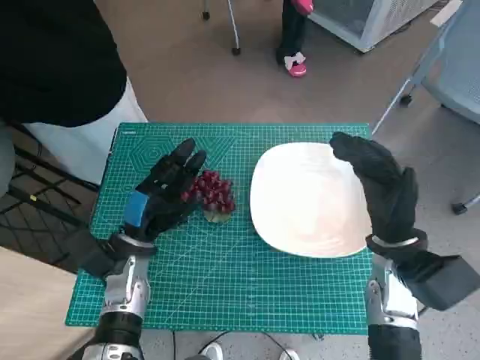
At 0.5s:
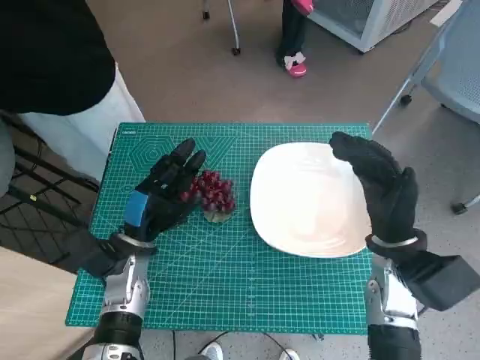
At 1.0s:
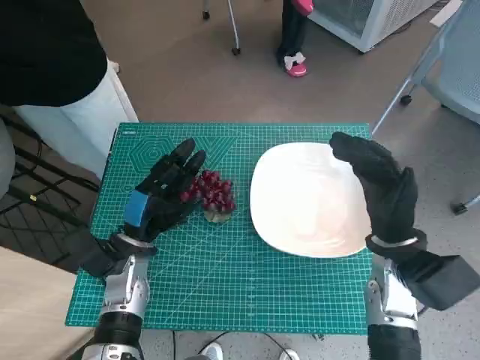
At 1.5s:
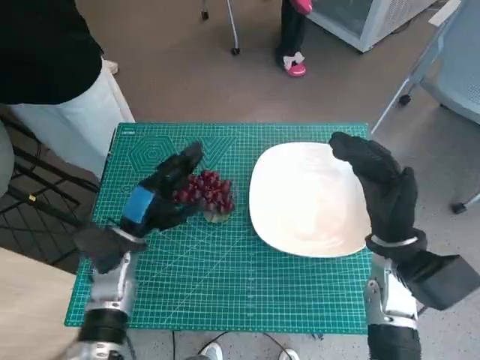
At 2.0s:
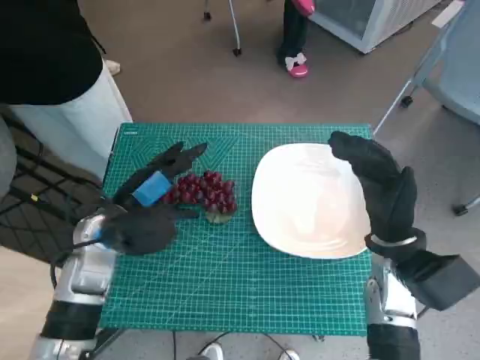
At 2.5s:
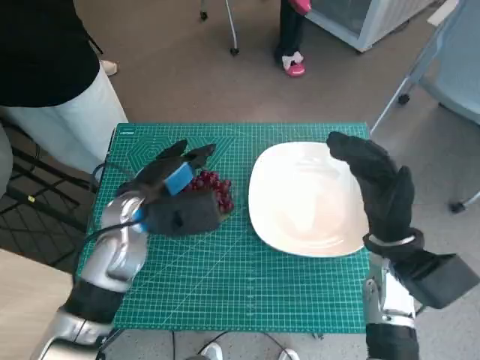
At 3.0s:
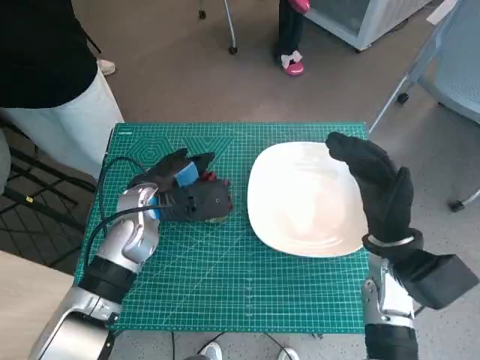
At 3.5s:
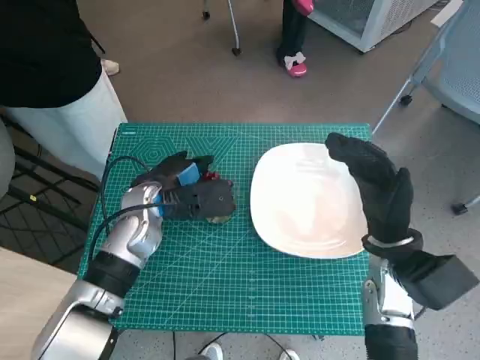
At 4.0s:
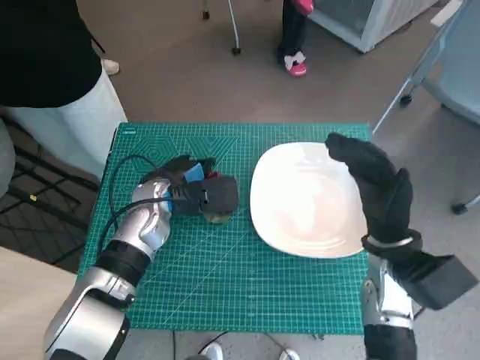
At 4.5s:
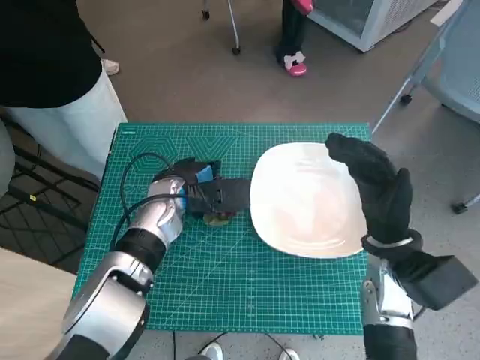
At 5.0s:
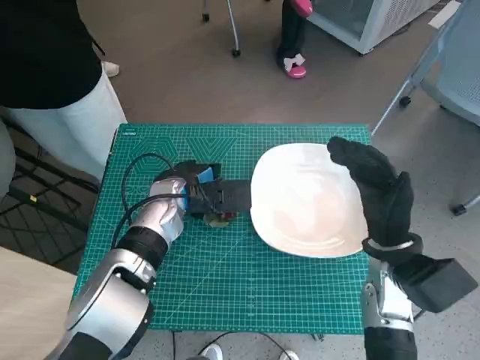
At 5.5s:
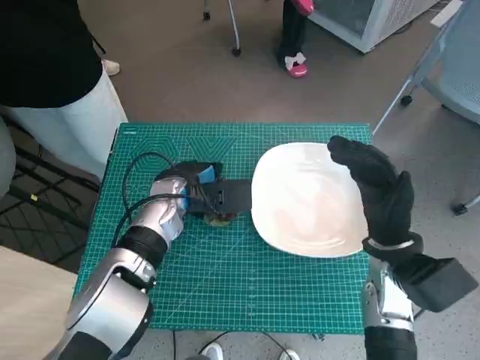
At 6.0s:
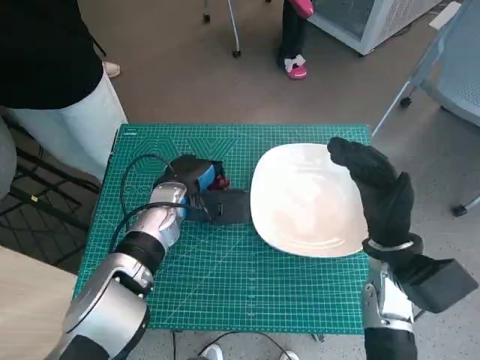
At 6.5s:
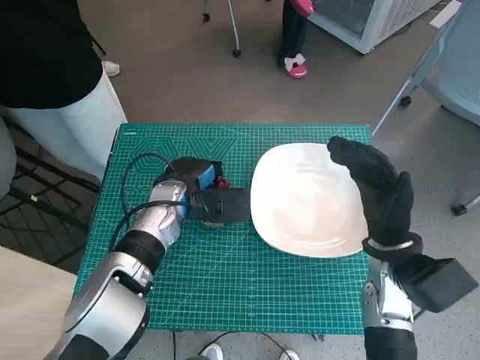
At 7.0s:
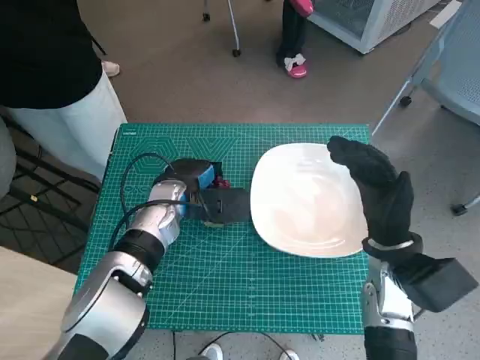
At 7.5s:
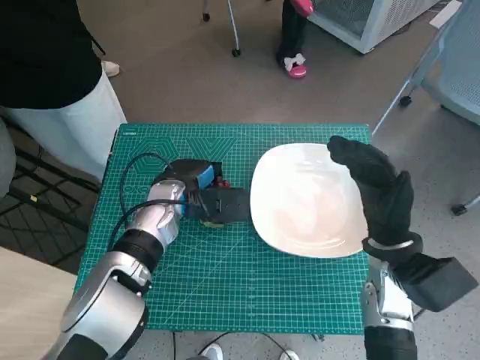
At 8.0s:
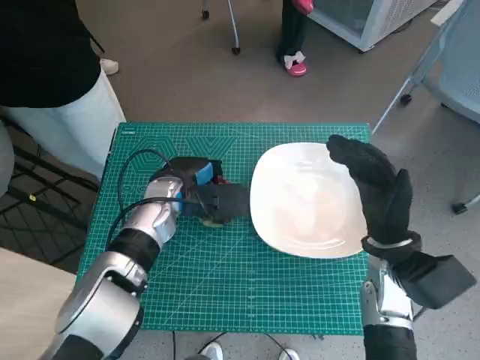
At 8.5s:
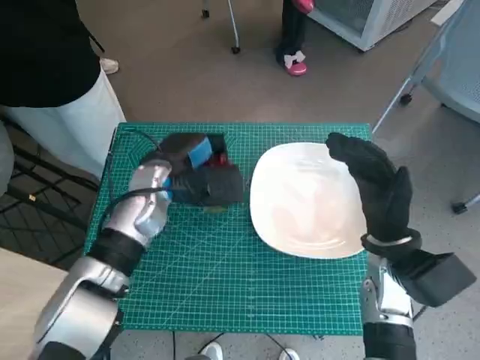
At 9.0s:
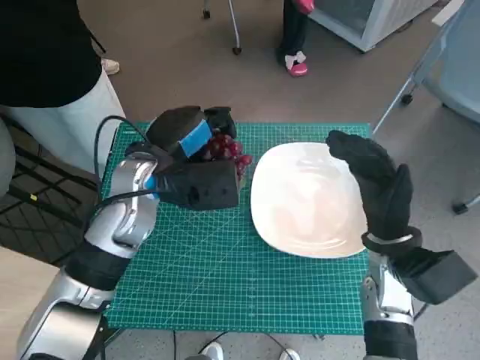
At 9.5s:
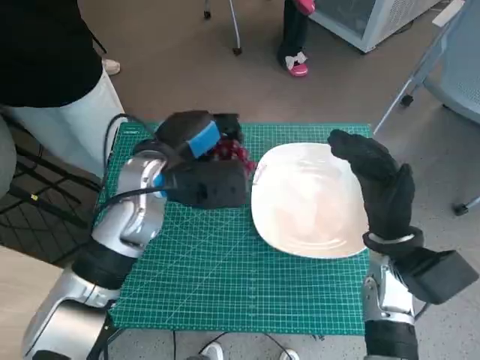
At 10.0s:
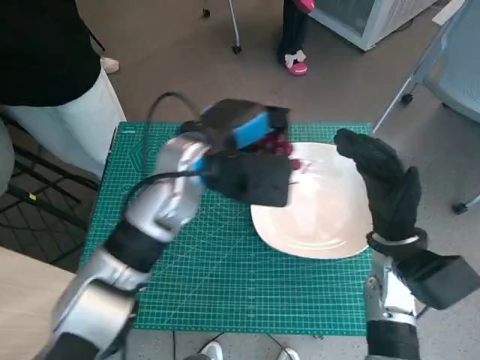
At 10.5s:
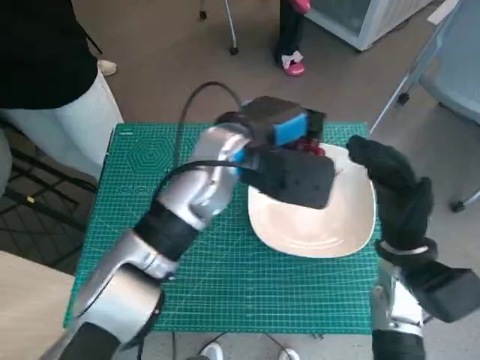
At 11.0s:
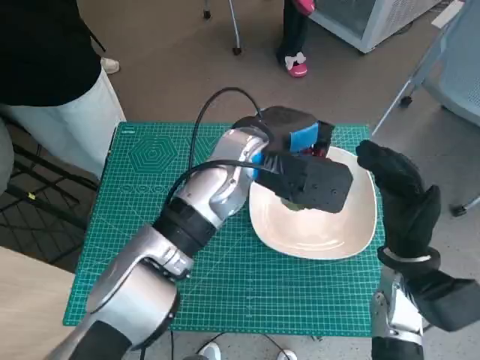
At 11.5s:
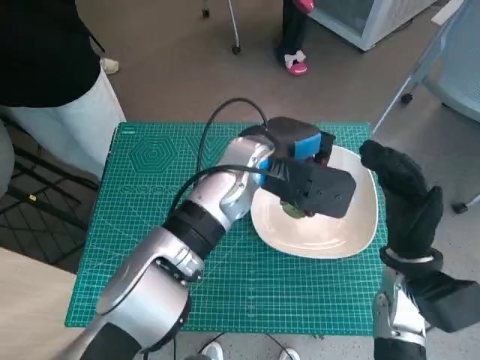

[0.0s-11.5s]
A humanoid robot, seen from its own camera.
Task of the whole recording: Pick up the grapes and put them on the plate.
Step, 0.0s to 6.0s: Grasp the grapes with left hand.
2.0s to 4.0s: The left hand is displaced forward and to the right by roughly 10 cm.
4.0s to 6.0s: The hands stay close to where they were, moving slightly.
6.0s to 7.5s: Both hands stay about where they are.
7.5s to 9.5s: The left hand shifts roughly 10 cm upward.
9.5s to 11.5s: The left hand moves to the right, about 10 cm.

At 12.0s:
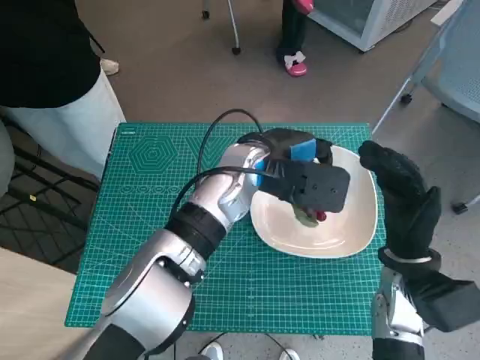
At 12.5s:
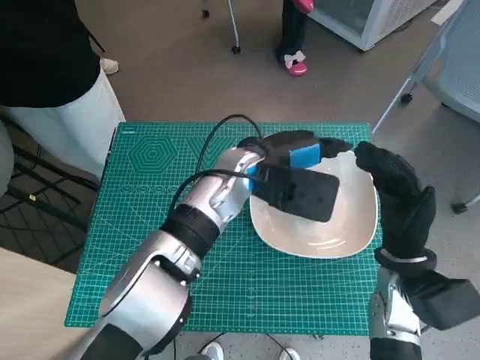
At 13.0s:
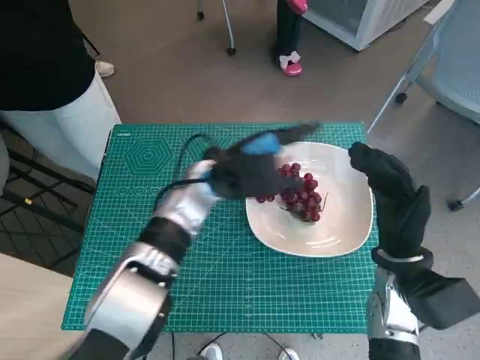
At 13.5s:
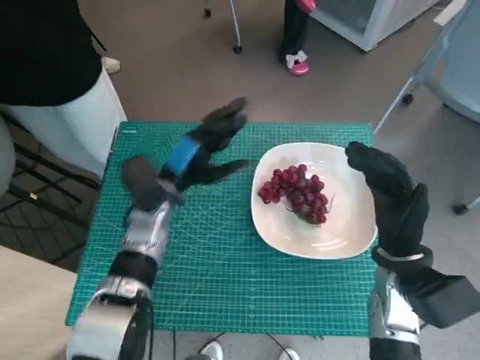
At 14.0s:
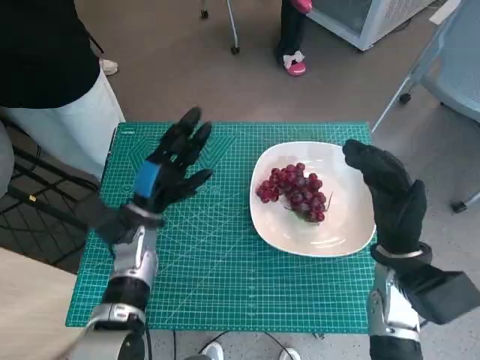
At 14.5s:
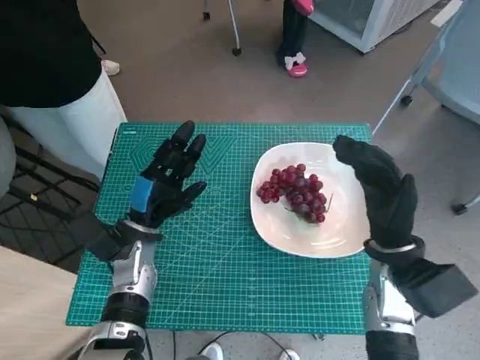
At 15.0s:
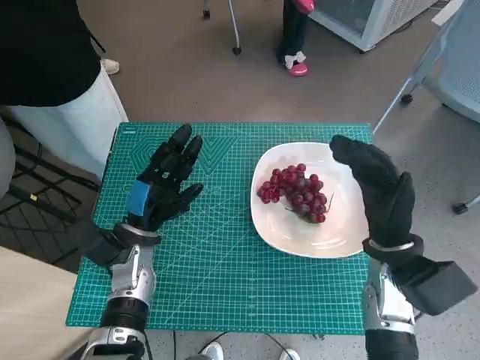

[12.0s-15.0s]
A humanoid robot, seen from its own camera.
Task of the whole recording: Pick up the grapes and put them on the plate.
12.0s to 13.5s: The left hand heads to the left and downward, covering some 15 cm.
13.5s to 15.0s: The left hand shifts about 10 cm downward and backward.

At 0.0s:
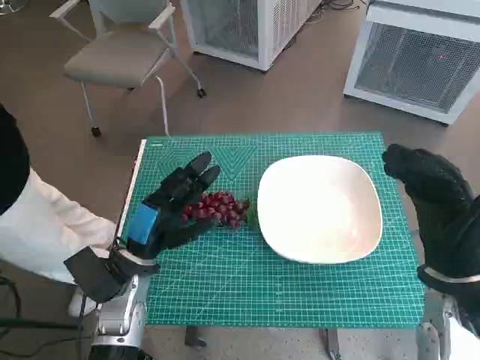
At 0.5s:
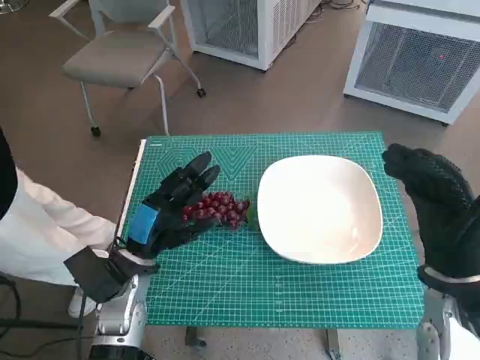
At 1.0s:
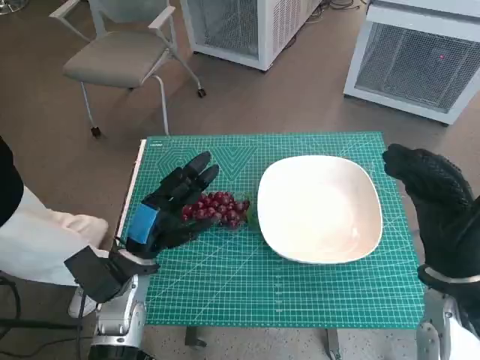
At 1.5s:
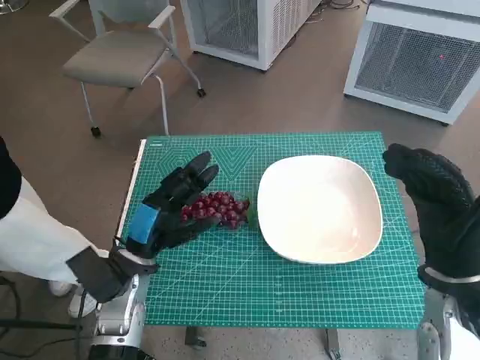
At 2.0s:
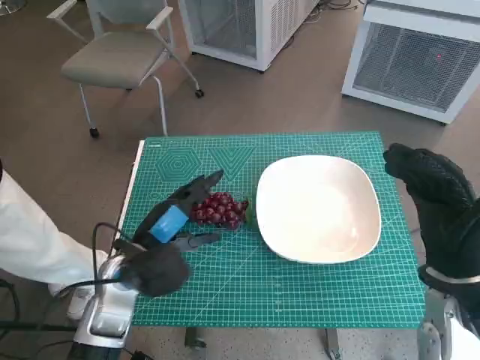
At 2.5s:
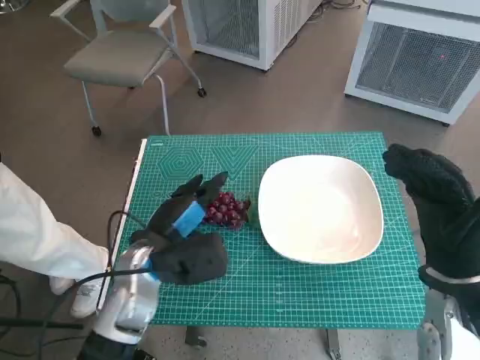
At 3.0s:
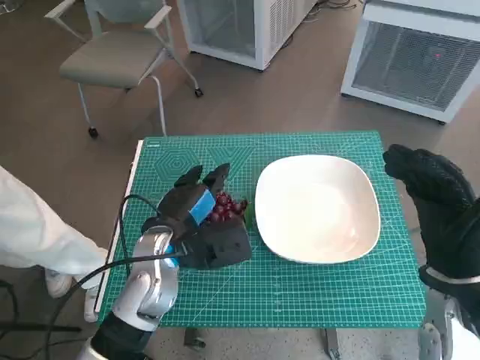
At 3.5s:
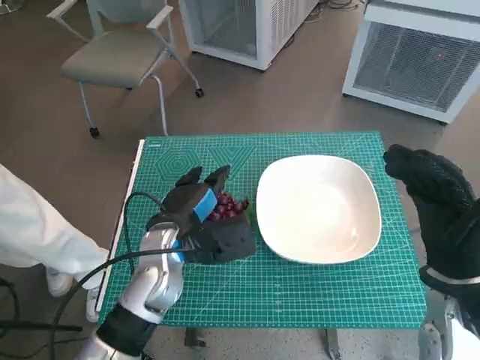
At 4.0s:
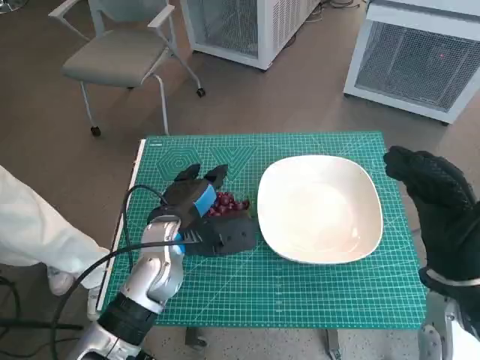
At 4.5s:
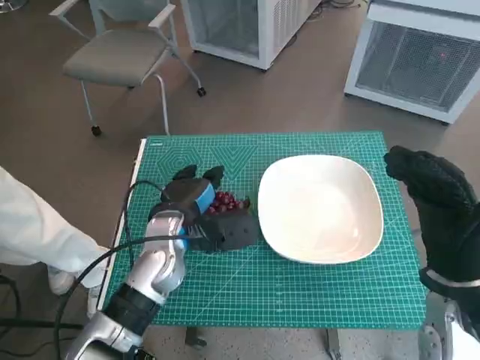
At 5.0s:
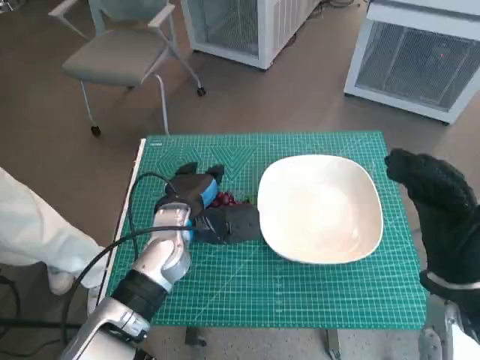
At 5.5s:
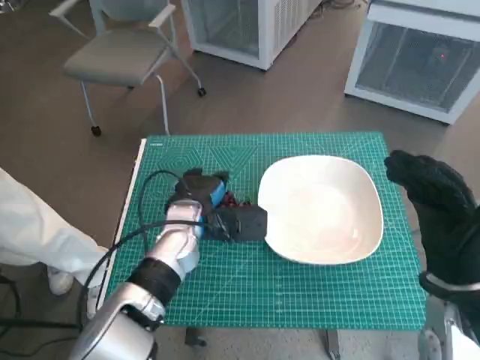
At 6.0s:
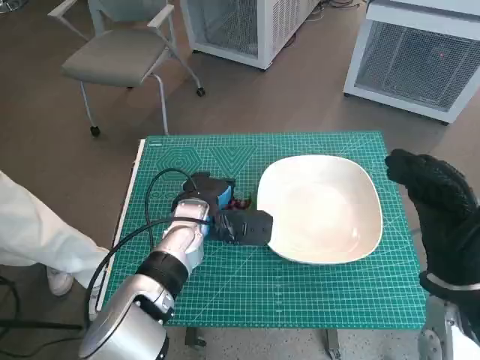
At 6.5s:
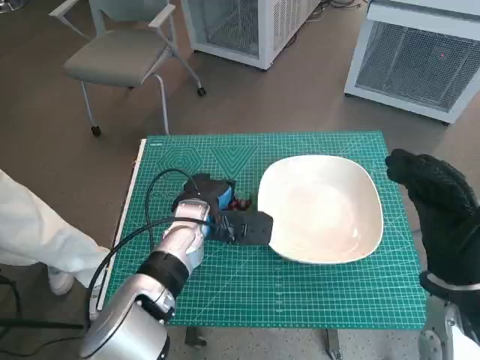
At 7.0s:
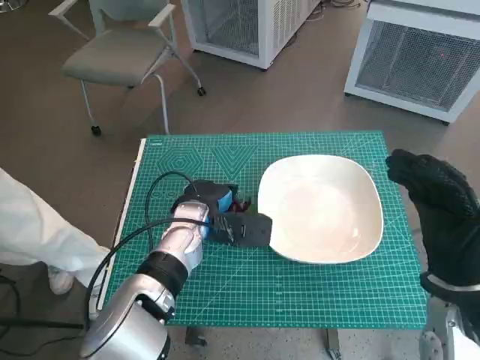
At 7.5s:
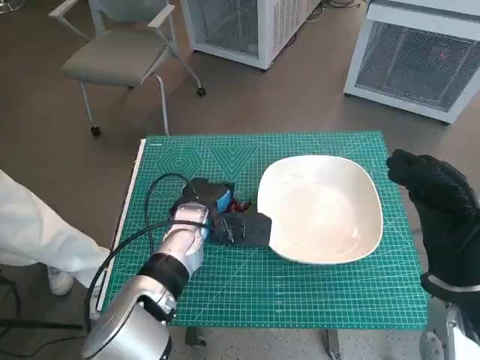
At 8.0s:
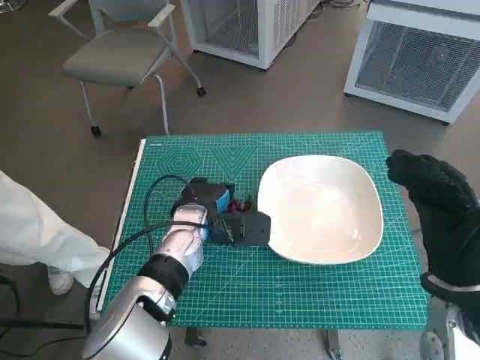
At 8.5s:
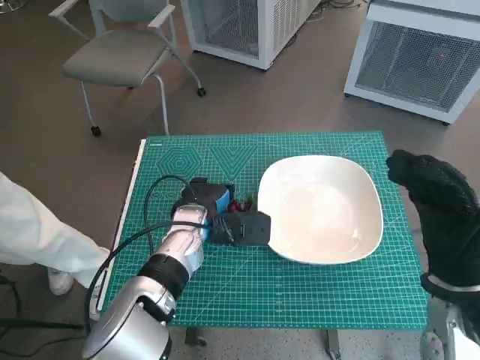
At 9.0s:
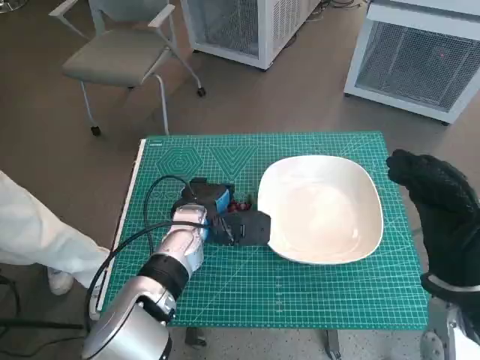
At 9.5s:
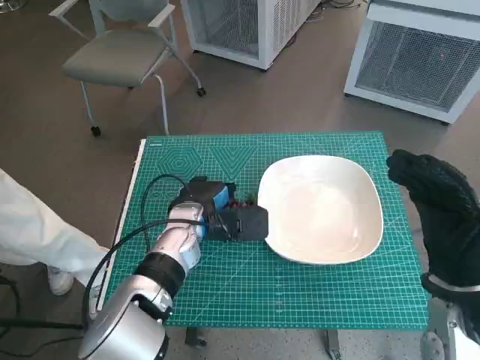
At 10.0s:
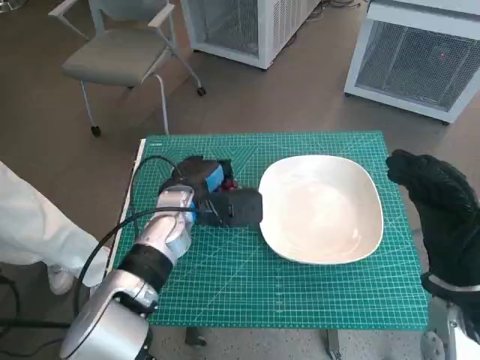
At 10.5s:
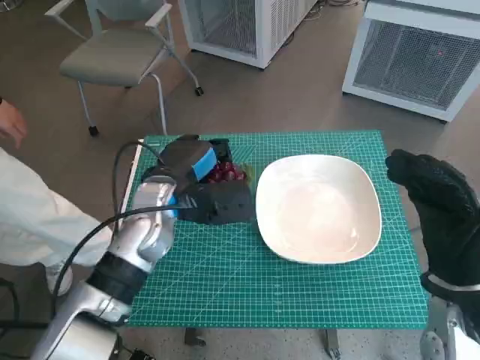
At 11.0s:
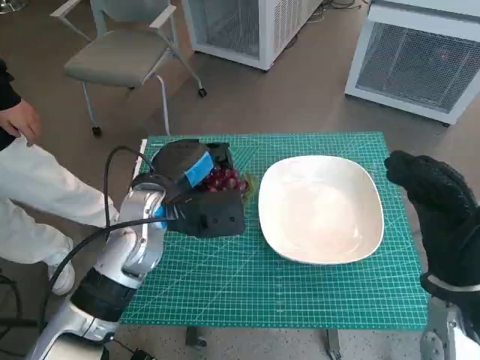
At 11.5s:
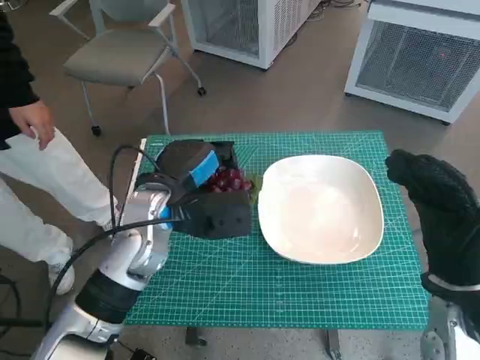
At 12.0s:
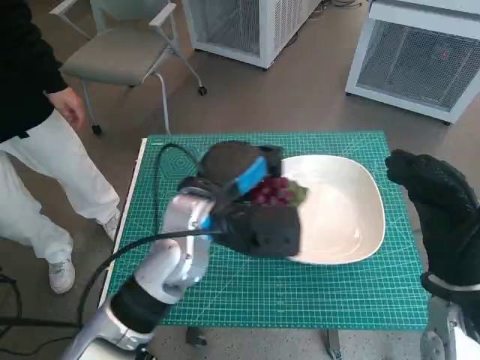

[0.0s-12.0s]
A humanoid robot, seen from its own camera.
Task of the whole recording: Pick up the grapes and put them on the plate.
Step, 0.0s to 9.0s: Grasp the grapes with left hand.
2.0s to 4.0s: The left hand shifts about 5 cm to the right.
4.0s to 6.0s: The left hand ends up some 5 cm from where it was.
6.0s to 8.0s: Both hands stay about where they are.
8.0s to 10.0s: The hands stay close to where they were, moving slightly.
10.0s to 12.0s: The left hand is displaced upward and backward by about 10 cm.
